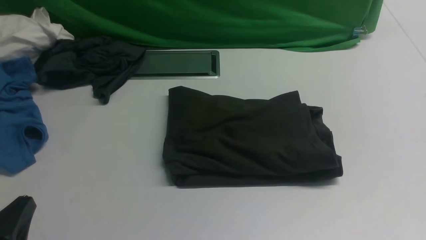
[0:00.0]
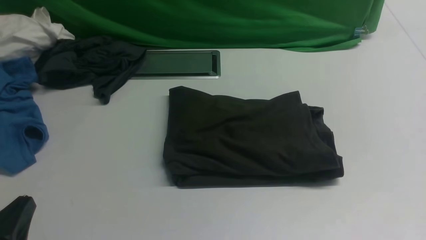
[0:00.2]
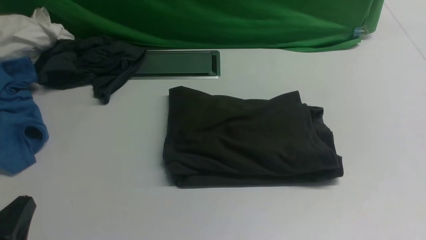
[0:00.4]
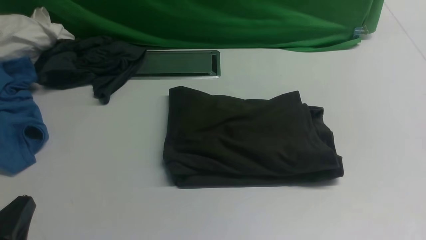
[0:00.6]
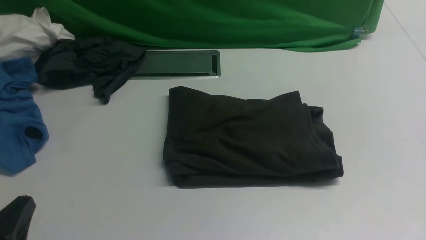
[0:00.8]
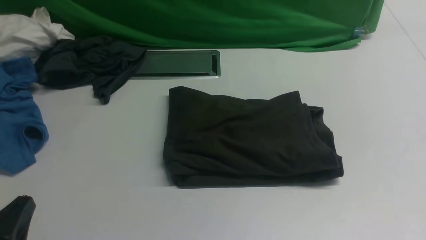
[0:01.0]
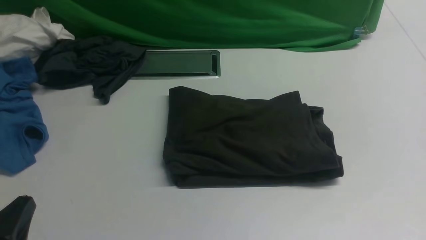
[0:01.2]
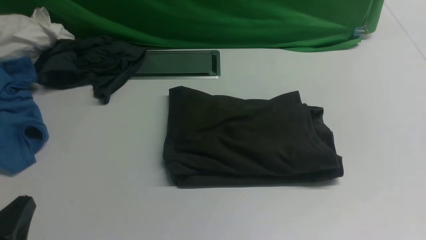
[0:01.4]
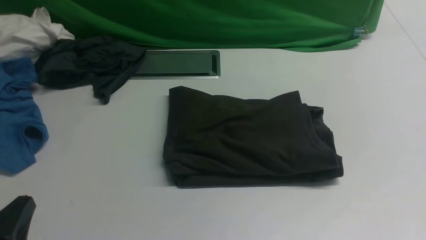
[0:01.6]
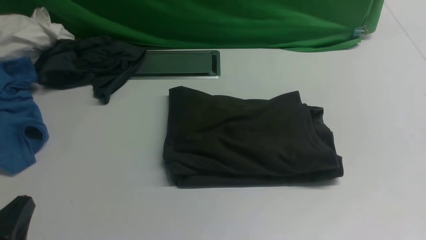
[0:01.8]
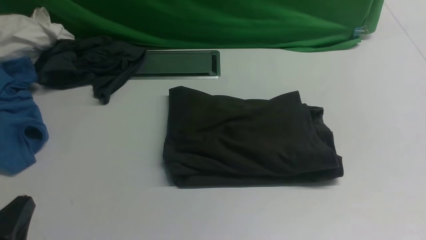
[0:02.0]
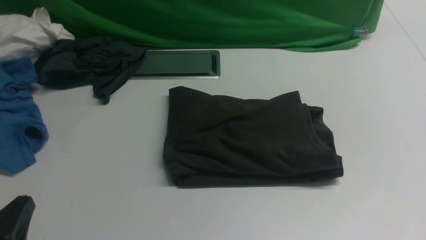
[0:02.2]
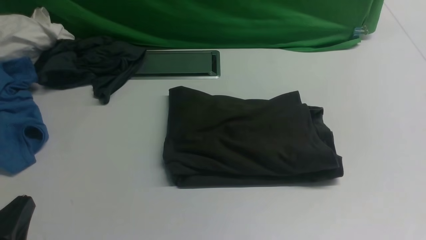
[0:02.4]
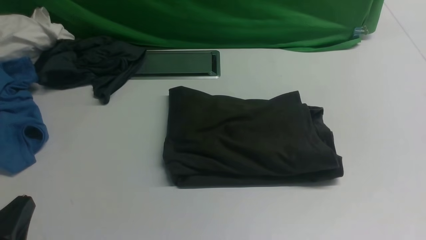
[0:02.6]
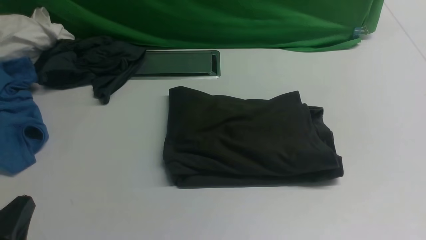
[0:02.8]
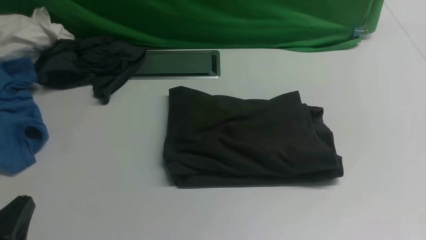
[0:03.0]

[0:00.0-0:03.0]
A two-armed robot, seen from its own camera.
0:01.6 to 0:03.0: Neither gripper changes place.
